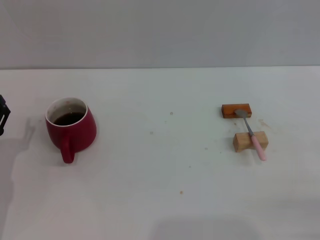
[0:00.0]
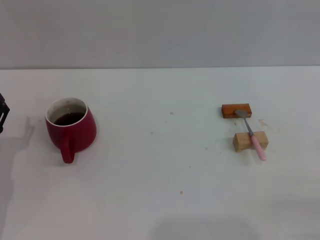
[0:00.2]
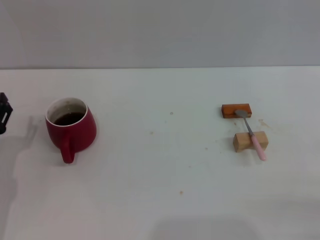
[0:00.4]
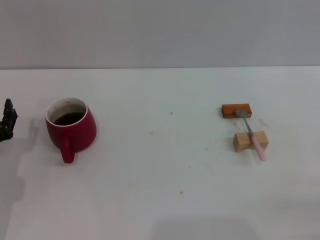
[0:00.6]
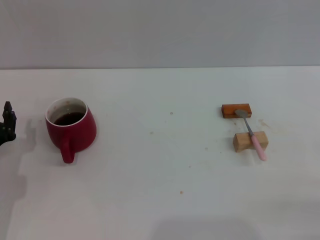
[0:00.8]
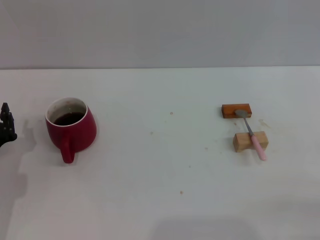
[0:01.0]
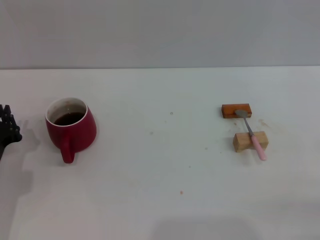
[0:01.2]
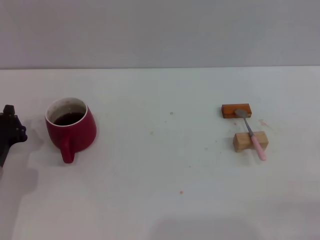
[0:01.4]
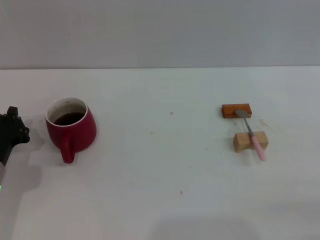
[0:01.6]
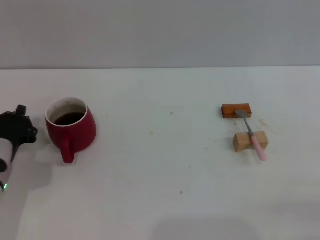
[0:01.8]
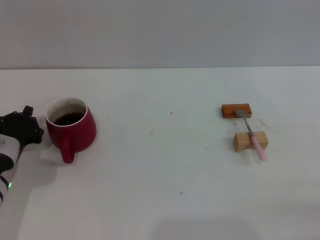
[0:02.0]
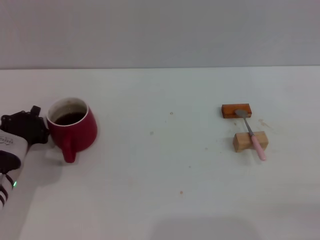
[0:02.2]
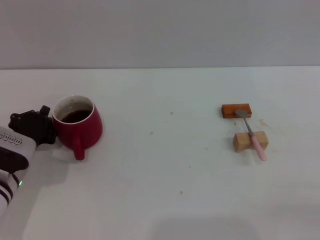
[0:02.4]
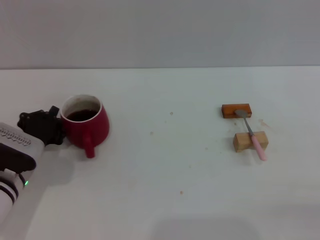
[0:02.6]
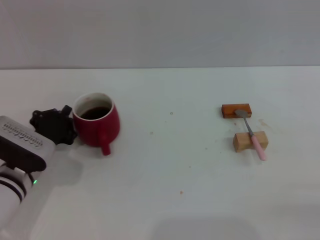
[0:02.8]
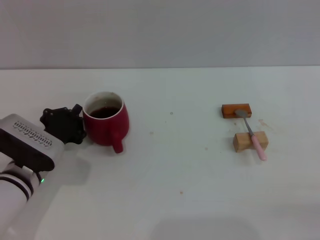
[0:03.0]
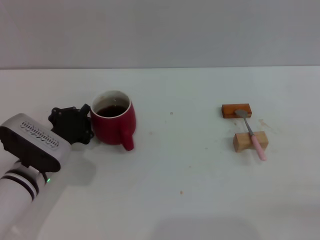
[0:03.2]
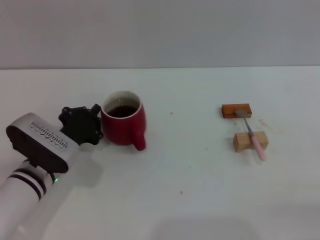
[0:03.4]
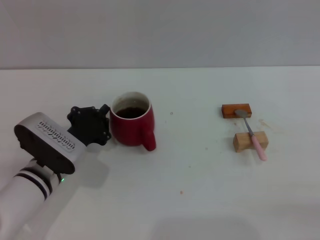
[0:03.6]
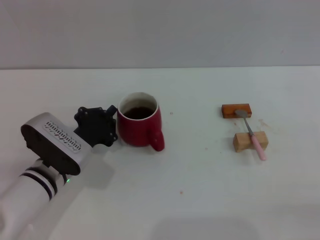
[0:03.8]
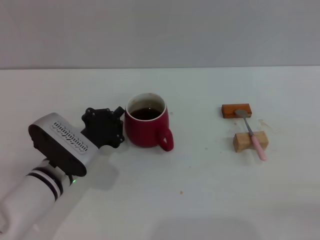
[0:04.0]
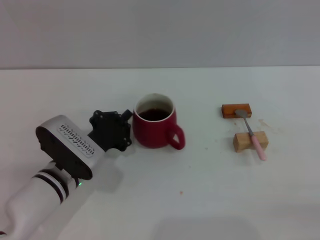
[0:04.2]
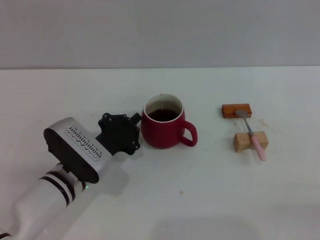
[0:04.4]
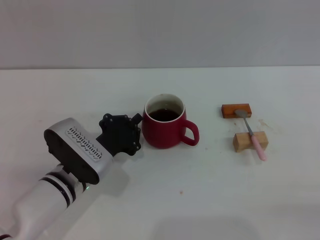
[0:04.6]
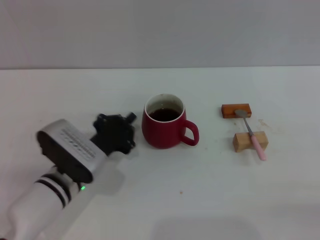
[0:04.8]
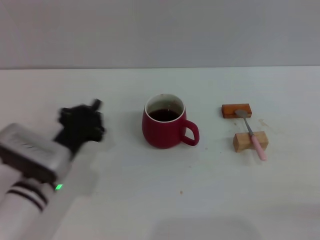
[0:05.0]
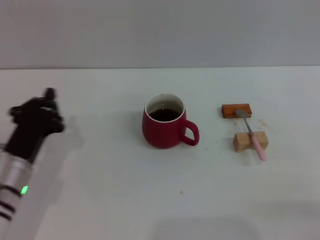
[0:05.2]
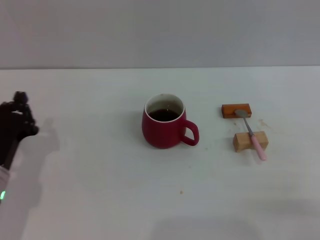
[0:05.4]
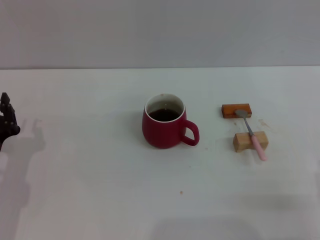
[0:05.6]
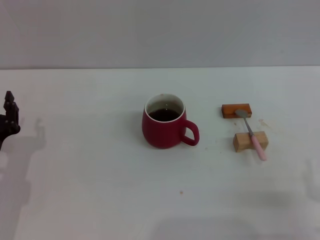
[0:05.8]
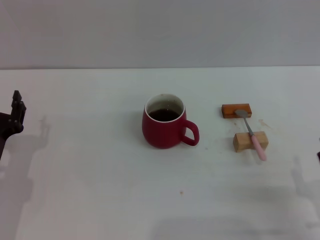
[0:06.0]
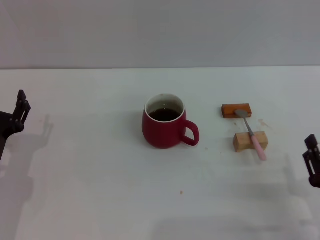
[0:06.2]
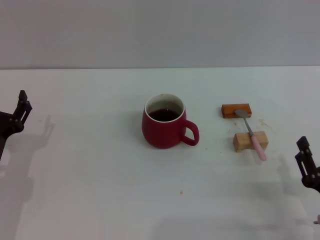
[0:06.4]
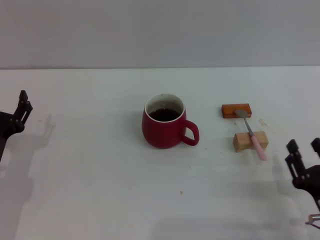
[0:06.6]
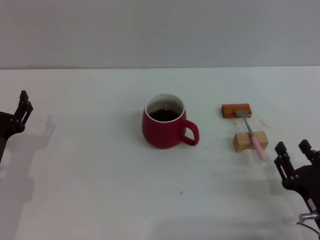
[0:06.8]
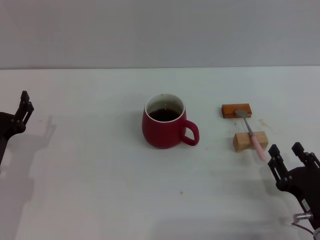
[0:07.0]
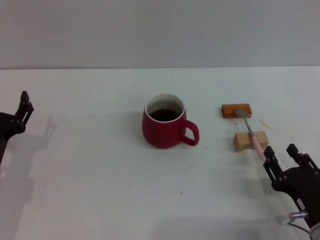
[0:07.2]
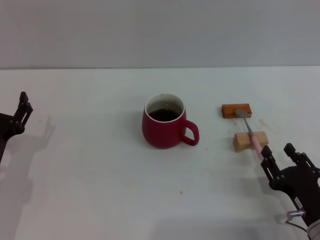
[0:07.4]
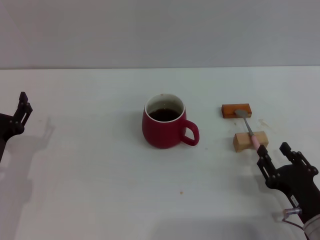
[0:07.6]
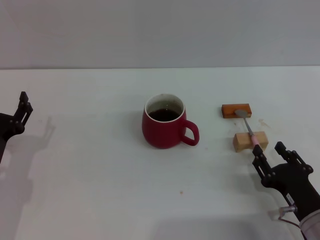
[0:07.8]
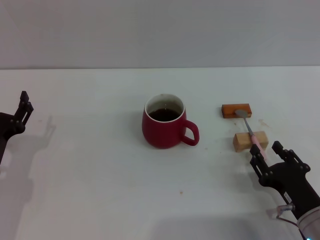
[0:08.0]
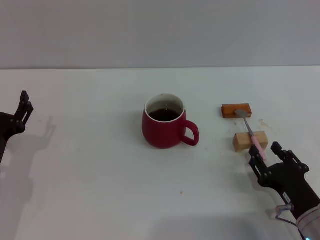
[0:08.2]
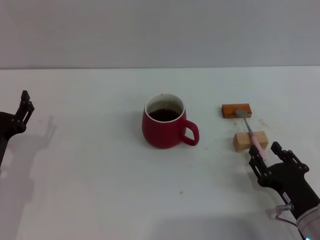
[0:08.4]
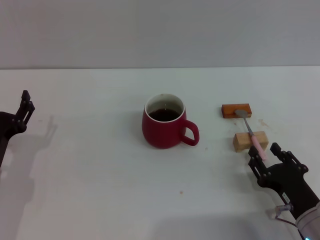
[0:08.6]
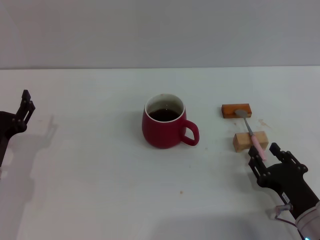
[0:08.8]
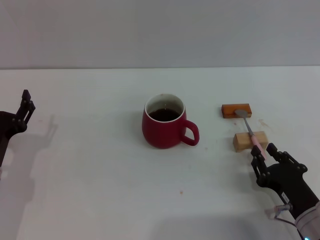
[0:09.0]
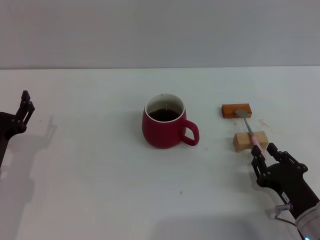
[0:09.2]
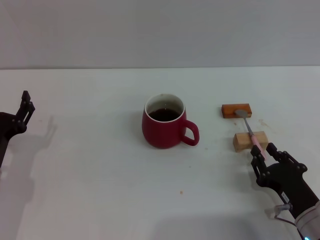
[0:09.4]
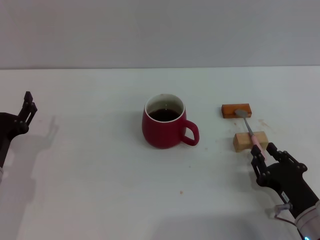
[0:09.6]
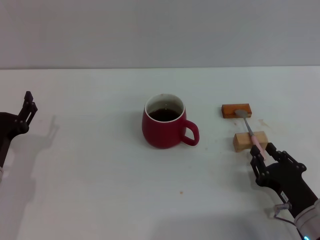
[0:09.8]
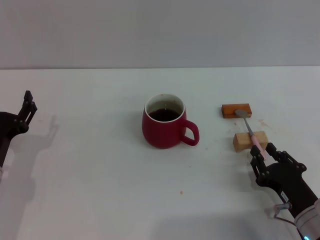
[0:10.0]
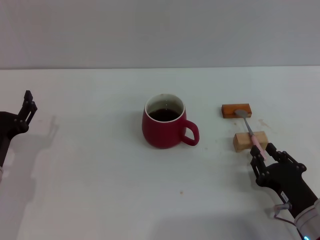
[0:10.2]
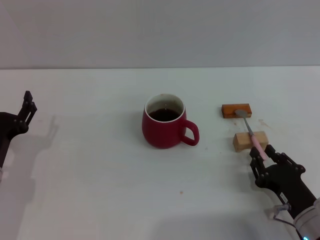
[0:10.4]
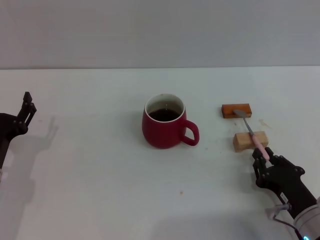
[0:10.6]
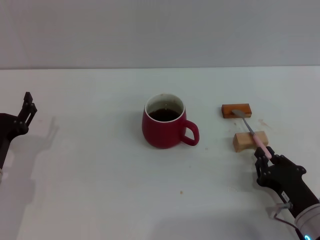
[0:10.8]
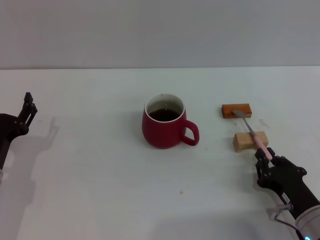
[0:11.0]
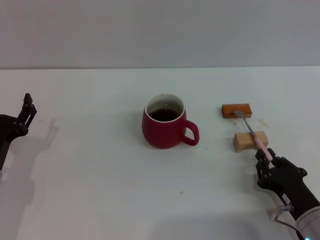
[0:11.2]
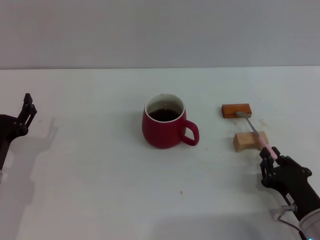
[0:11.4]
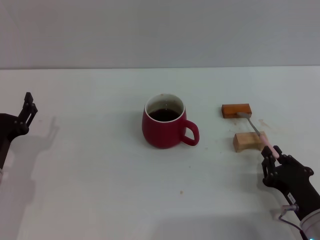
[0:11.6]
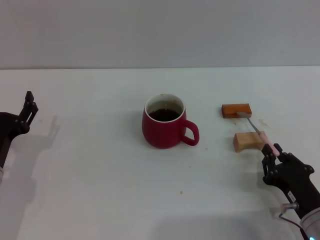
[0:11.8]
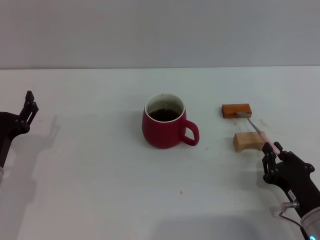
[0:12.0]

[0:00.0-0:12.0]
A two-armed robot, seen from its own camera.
Task of the whole recording: Move the red cup to the center, lift the pink spoon, stir it three times in the cup, and put the spoon into the cup.
Step, 0:00.0 to 0:05.0: Move the cup with coffee to the center of view with the left gripper.
0:00.0 to 0:01.6: The left gripper closes its fingers.
0:01.6 to 0:03.0: The left gripper is displaced to the right by roughly 5 cm.
0:03.0 to 0:04.4: The left gripper goes approximately 5 cm to the right.
0:04.4 to 0:06.0: The right gripper goes about 5 cm to the left, while the left gripper goes roughly 10 cm to the left, and opens.
0:06.0 to 0:07.6: The left gripper opens up. The right gripper shifts by approximately 5 cm.
0:07.6 to 0:09.0: Both grippers stay put.
0:09.0 to 0:10.4: Neither gripper changes place.
0:10.4 to 0:12.0: The grippers make only small movements.

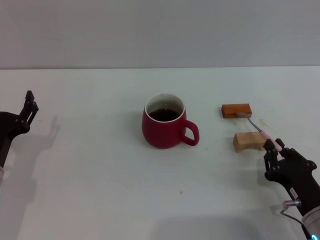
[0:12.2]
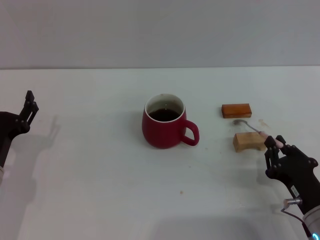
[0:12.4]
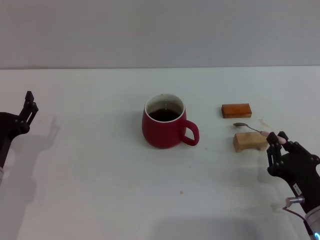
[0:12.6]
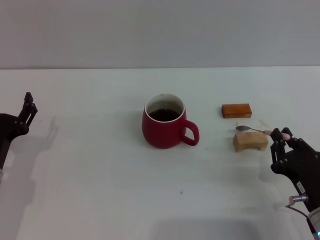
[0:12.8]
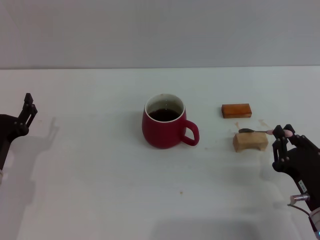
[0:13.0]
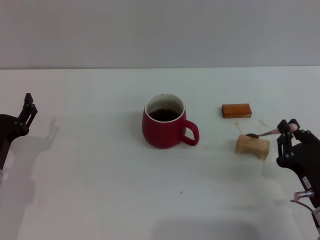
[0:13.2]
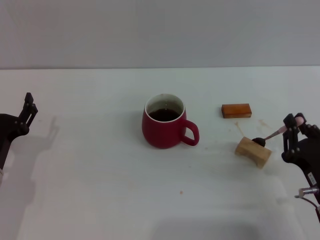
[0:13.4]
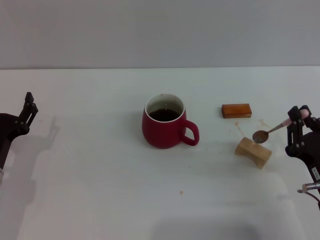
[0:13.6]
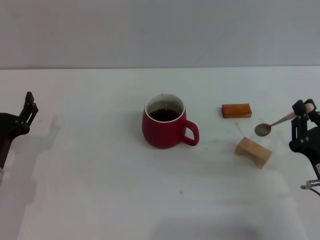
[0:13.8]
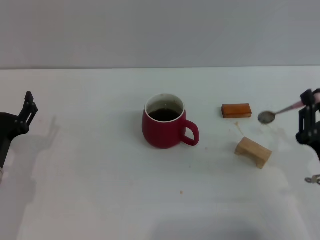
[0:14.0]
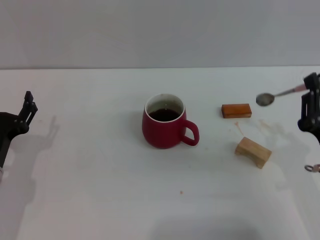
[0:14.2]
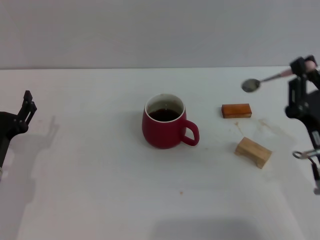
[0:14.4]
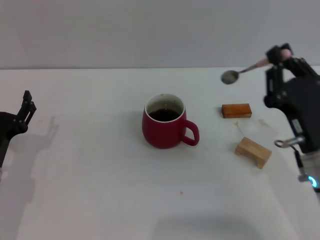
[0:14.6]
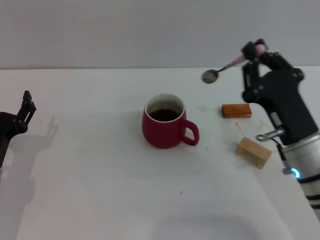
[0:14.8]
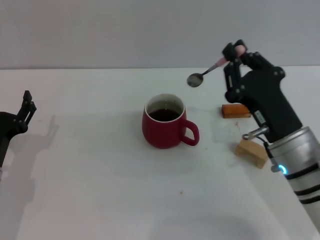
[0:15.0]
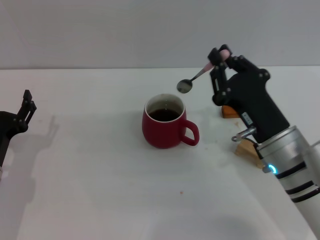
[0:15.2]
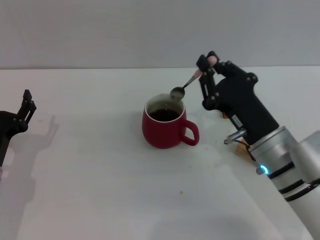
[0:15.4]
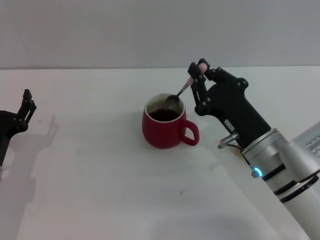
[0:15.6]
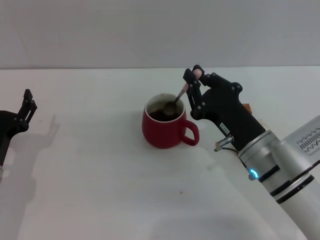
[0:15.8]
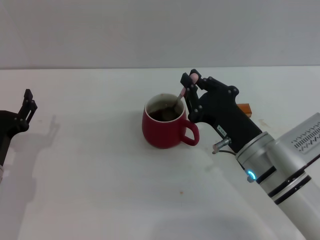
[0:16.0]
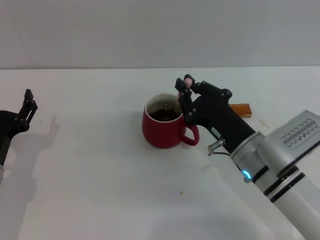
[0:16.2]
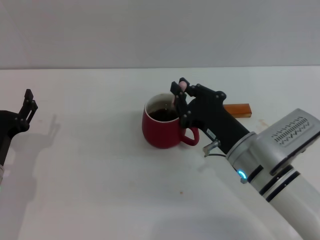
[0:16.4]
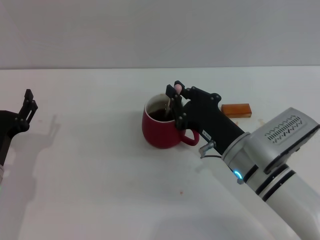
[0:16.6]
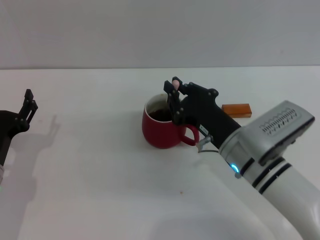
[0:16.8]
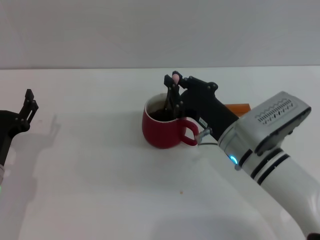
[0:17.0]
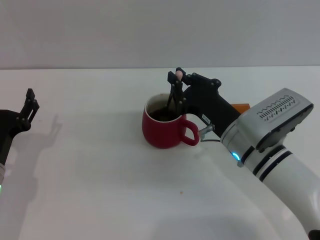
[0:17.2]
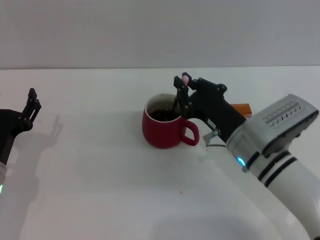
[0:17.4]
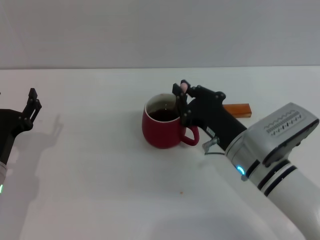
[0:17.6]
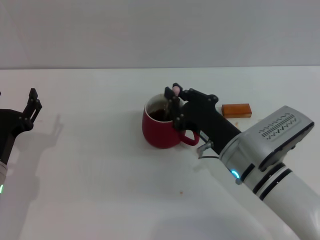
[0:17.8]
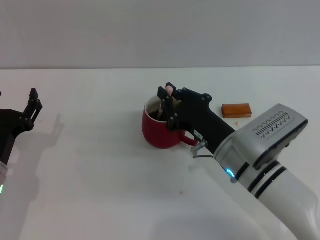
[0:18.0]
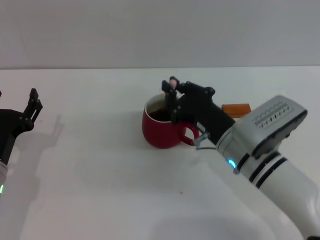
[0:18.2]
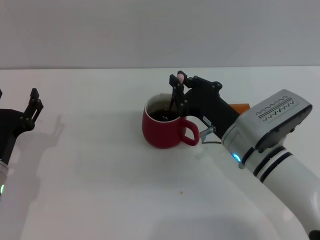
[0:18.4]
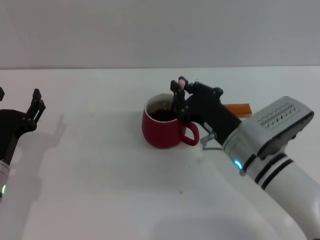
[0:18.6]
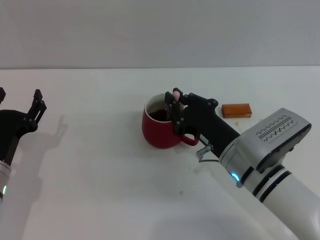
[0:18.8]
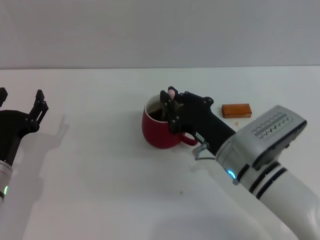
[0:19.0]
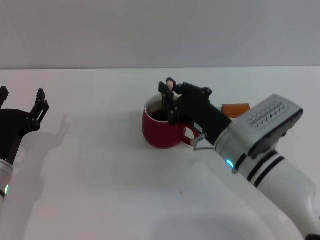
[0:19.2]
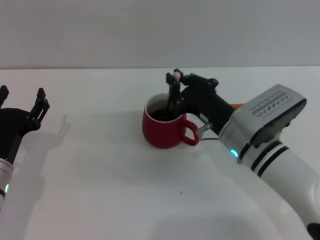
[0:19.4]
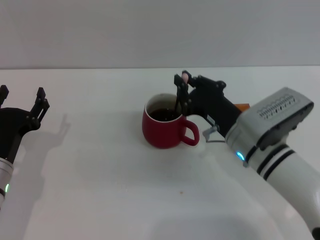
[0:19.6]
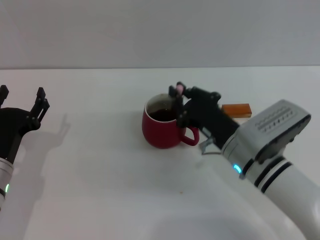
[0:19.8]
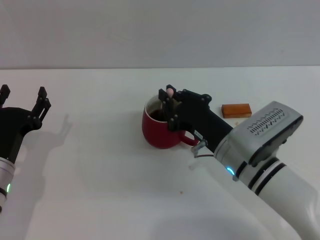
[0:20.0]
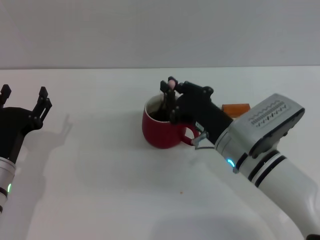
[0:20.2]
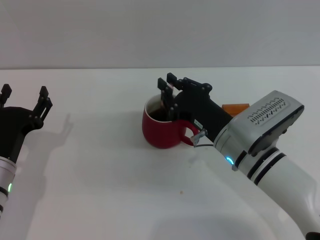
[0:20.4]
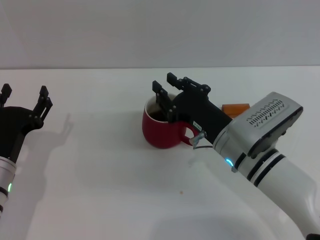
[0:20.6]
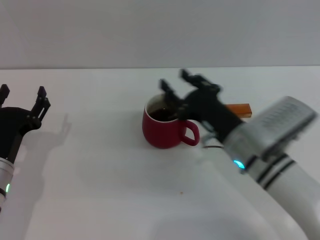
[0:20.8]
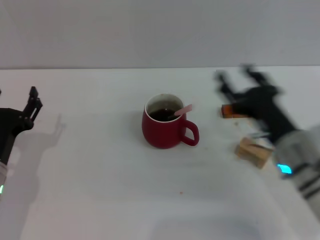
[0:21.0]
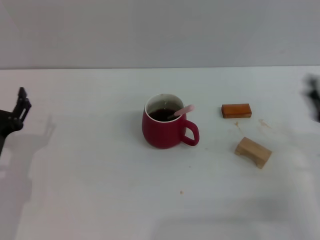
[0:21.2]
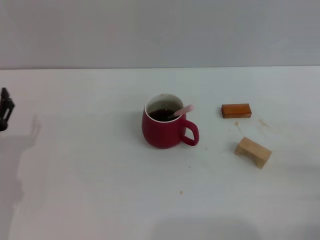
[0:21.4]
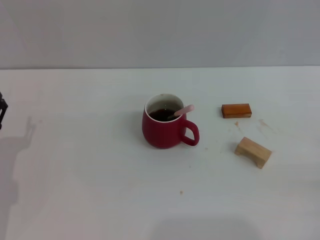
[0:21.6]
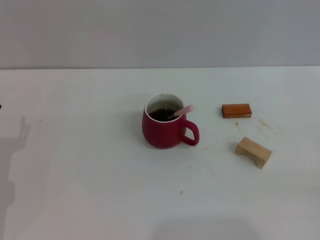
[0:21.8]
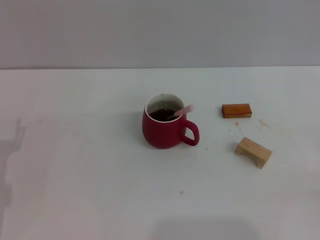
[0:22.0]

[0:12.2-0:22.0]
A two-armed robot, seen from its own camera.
Task of the whole recording: Move the red cup to the center, lift the pink spoon, stir it three times in the cup, and put the spoon into the cup.
Step, 0:14.0 to 0:20.6: Stir the coffee in the cup with the right gripper.
0:12.2 to 0:13.6: The grippers move only a little.
0:13.6 to 0:15.0: The right gripper goes approximately 10 cm to the left, forward and upward.
0:15.0 to 0:16.4: The grippers move only a little.
0:16.4 to 0:20.6: The grippers make only small movements.
0:20.6 to 0:22.0: The right gripper goes approximately 30 cm to the right and backward, and opens its fingers; the left gripper ends up about 5 cm from where it was.
